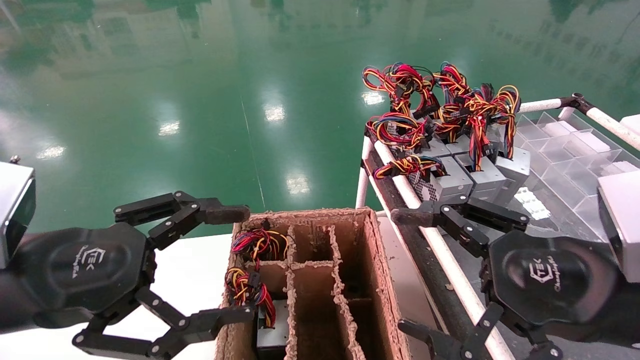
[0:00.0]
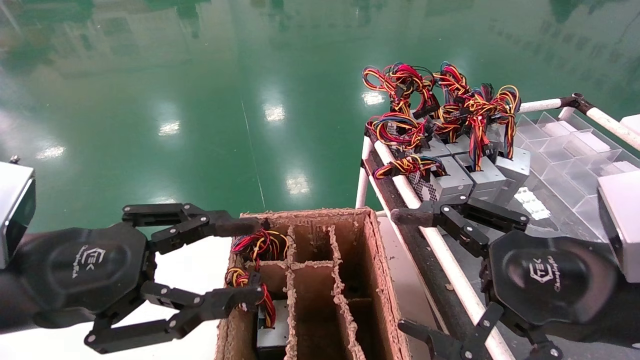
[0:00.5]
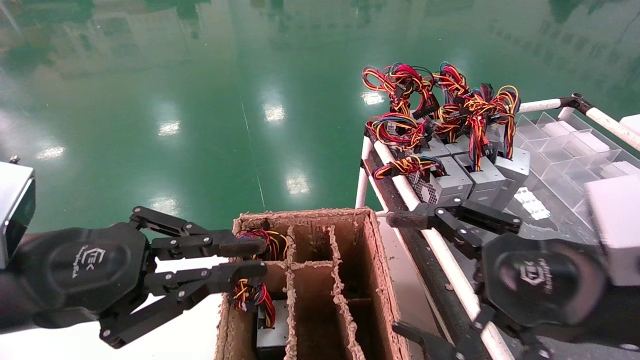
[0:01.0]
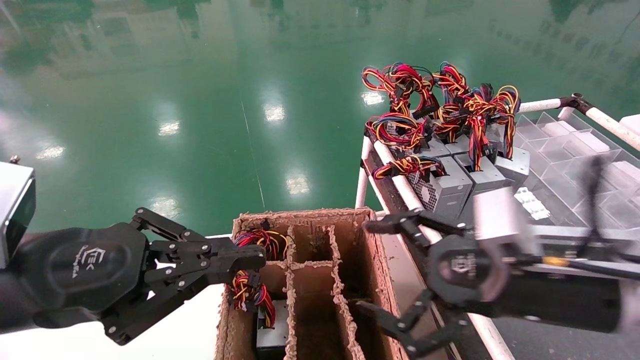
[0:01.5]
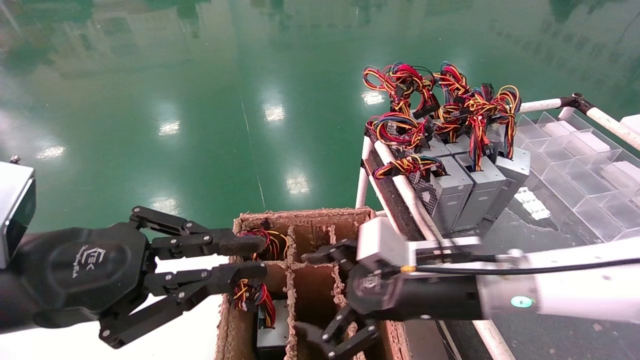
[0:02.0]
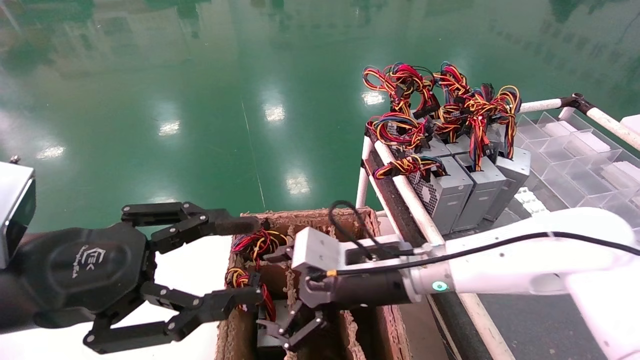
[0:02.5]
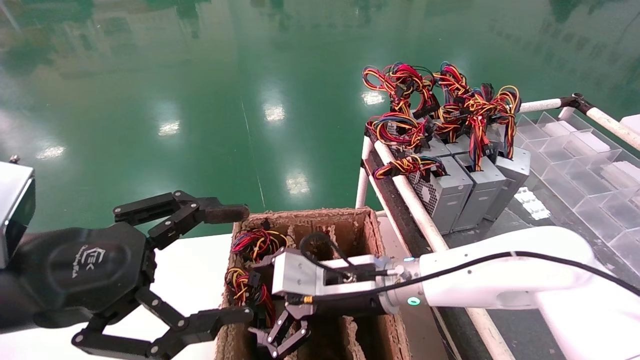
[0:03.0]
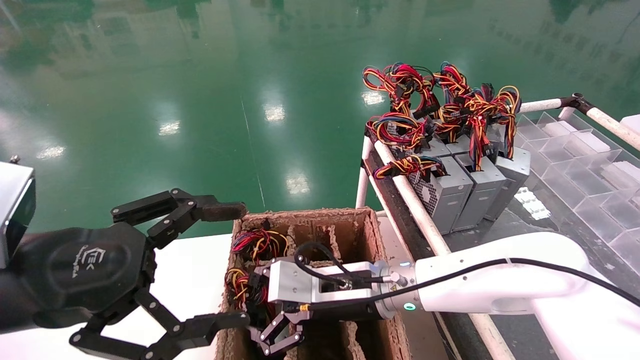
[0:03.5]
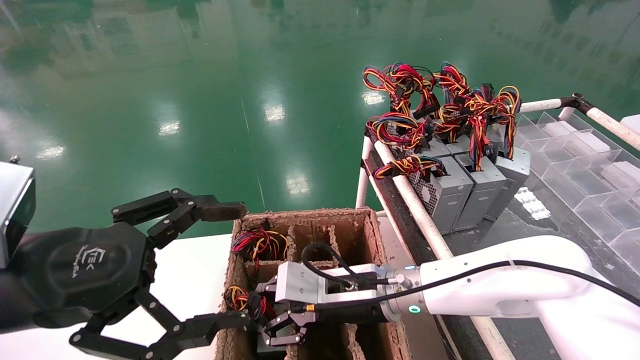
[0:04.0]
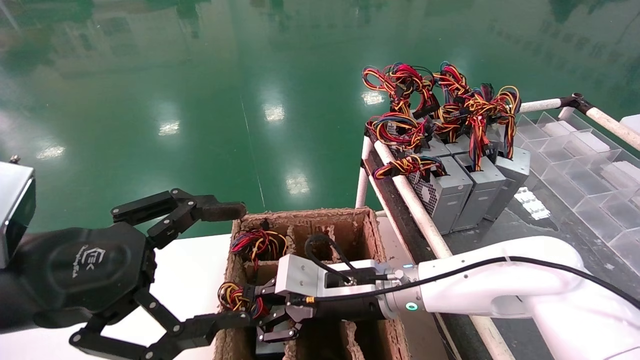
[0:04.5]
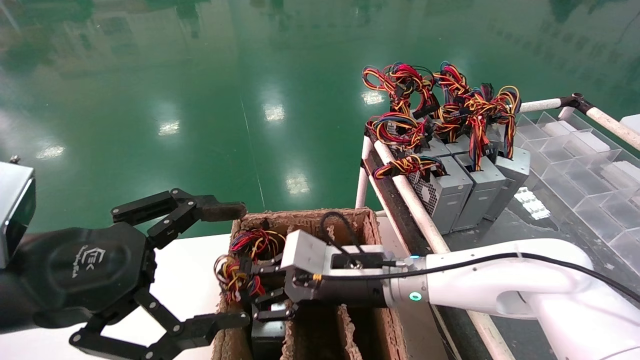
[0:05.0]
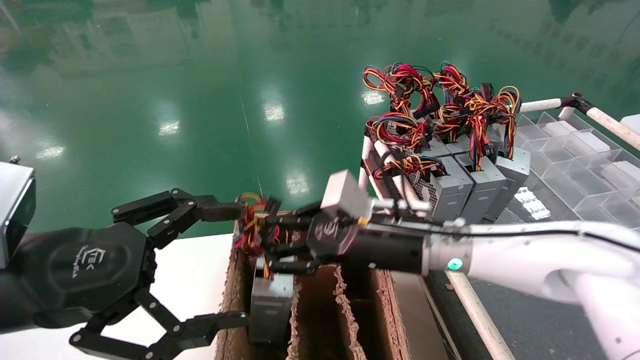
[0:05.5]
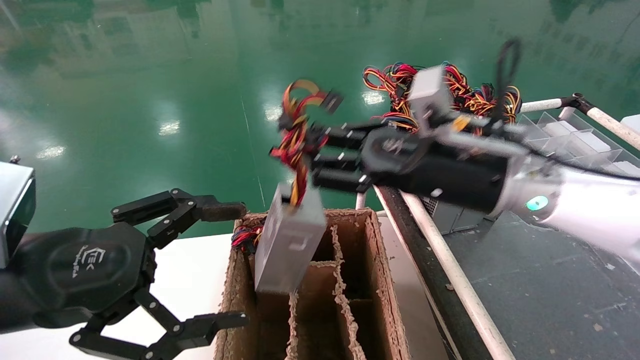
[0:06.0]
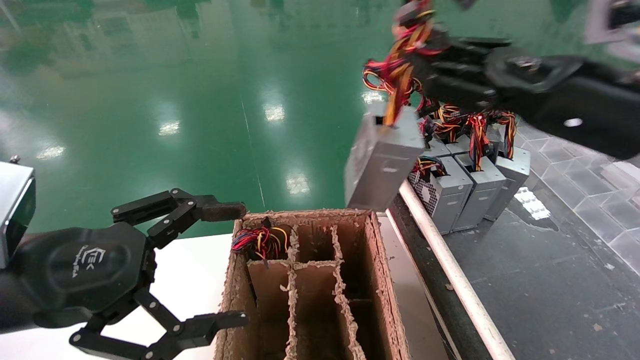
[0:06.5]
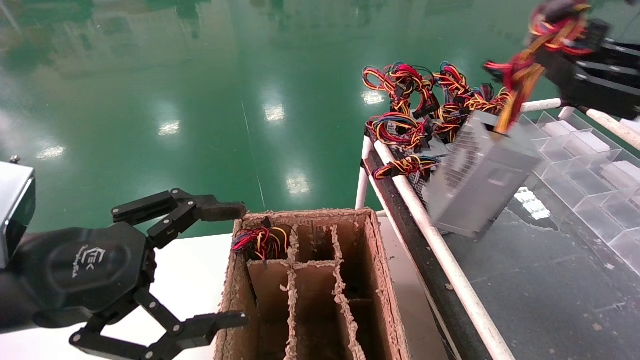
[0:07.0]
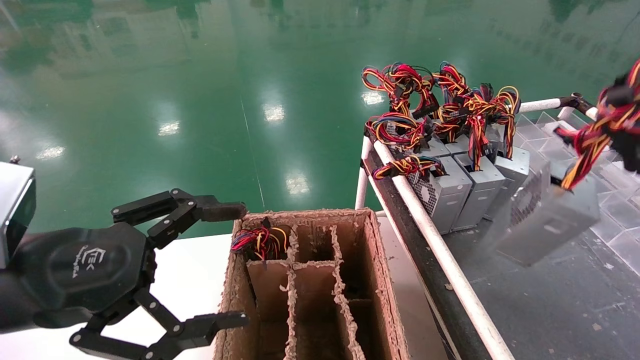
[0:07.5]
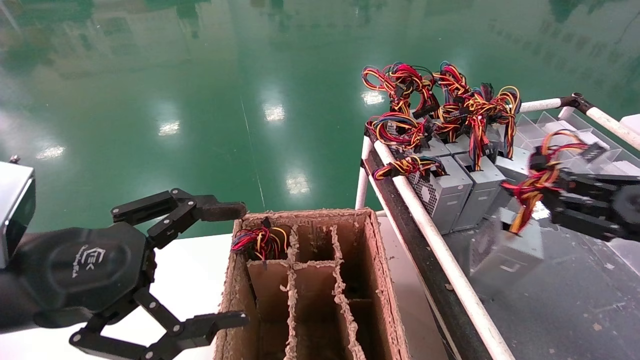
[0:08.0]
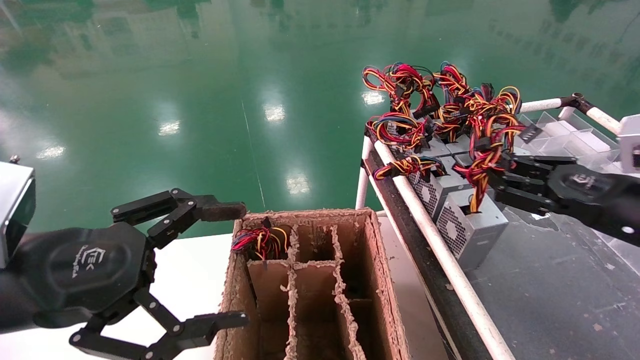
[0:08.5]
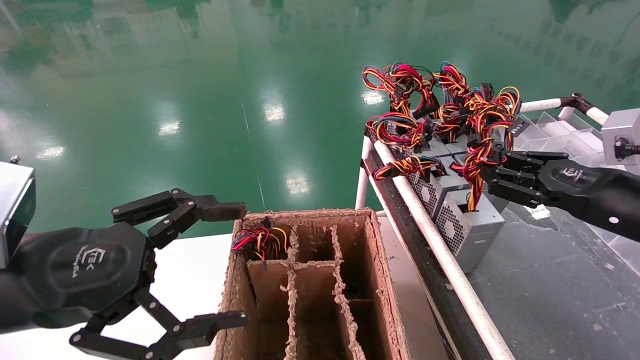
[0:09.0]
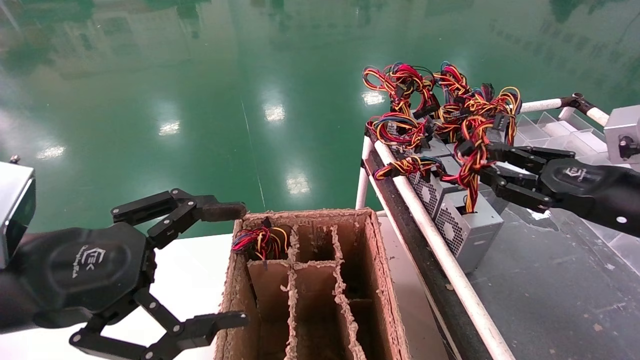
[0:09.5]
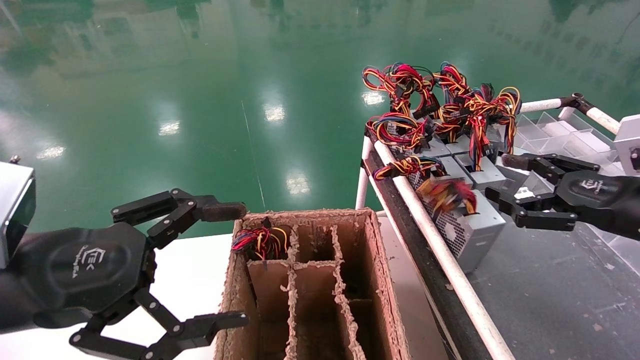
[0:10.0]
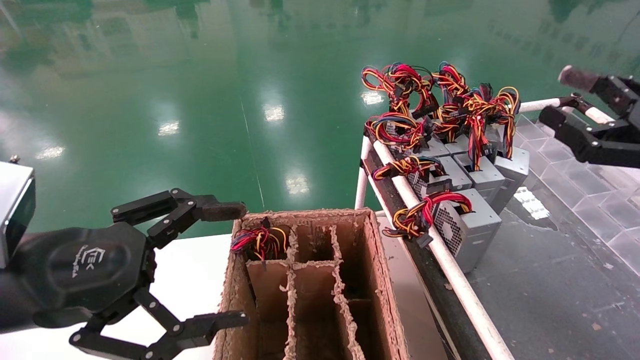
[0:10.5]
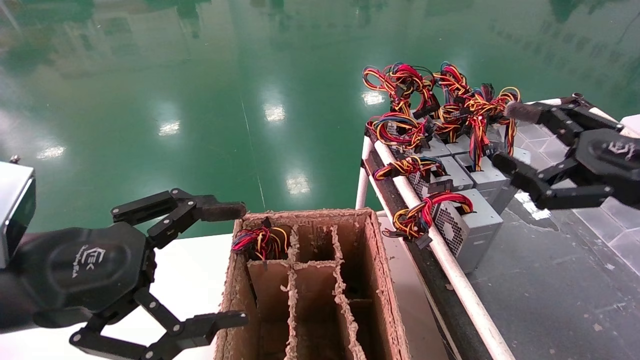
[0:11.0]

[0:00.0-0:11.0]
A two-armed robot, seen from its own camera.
Step, 0:01.5 to 0:05.0: Grab and lift the power supply from the large box.
Step, 0:05.5 to 0:09.5: Place the power supply on the operating table.
0:00.0 to 0:02.0: The right gripper is displaced forward, to the left and downward by roughly 20 cm, while the left gripper closes up.
0:02.0 to 0:03.5: The right gripper shifts roughly 10 cm to the left; the left gripper opens.
0:03.5 to 0:05.5: The right gripper travels upward and to the right by some 10 cm, and closes its fingers.
0:05.5 to 0:07.5: The right gripper shifts about 35 cm to the right.
0:07.5 to 0:09.0: The right gripper moves forward and to the left, approximately 10 cm.
0:09.0 to 0:11.0: The right gripper shifts approximately 5 cm backward, and opens its fingers.
